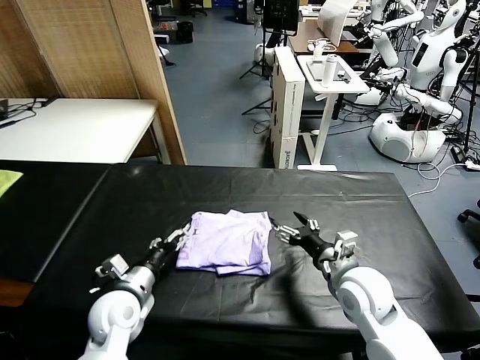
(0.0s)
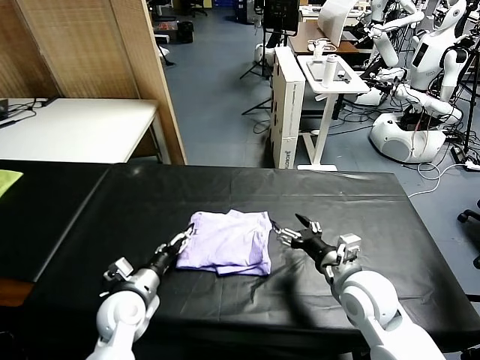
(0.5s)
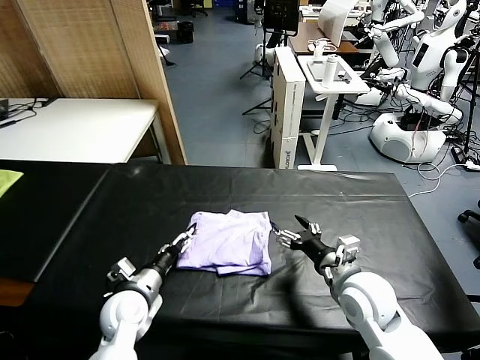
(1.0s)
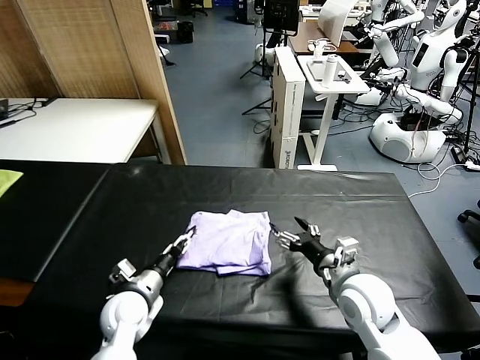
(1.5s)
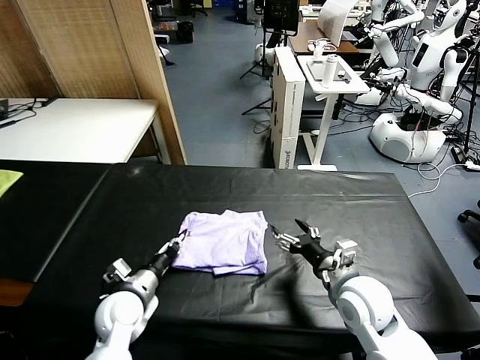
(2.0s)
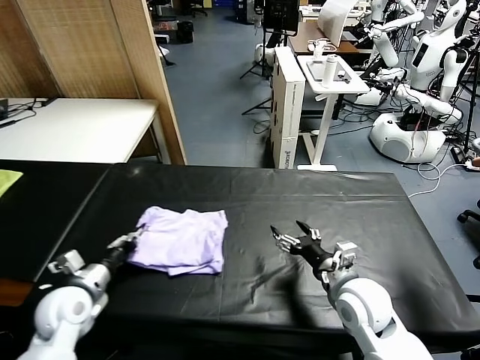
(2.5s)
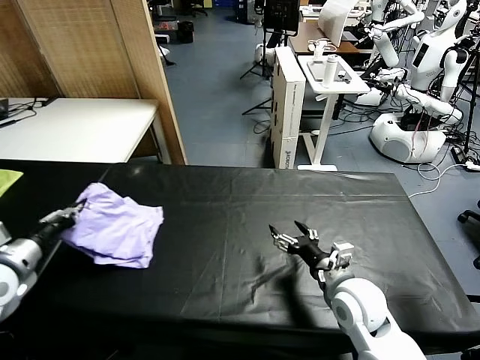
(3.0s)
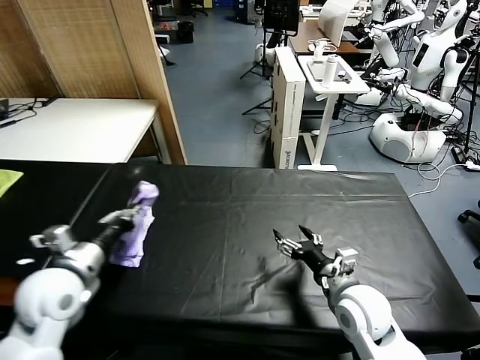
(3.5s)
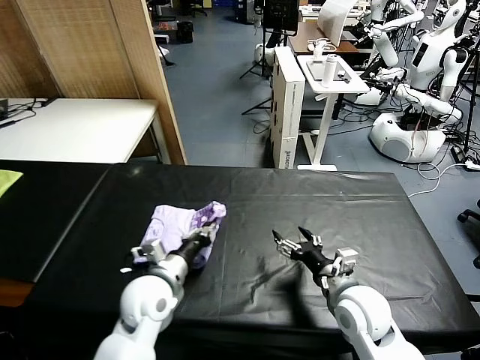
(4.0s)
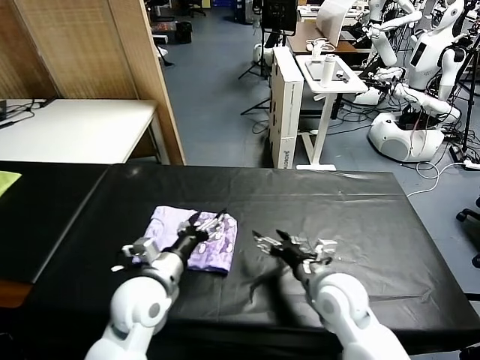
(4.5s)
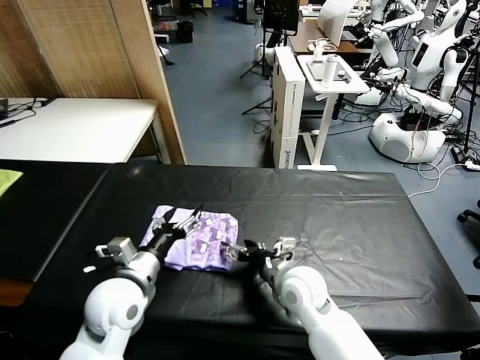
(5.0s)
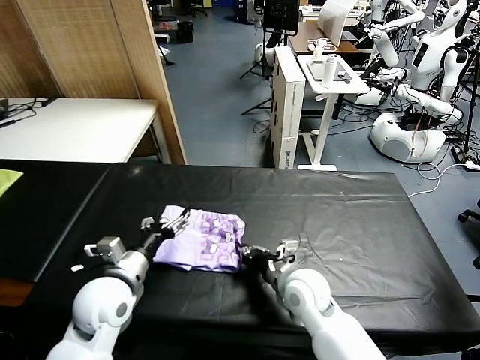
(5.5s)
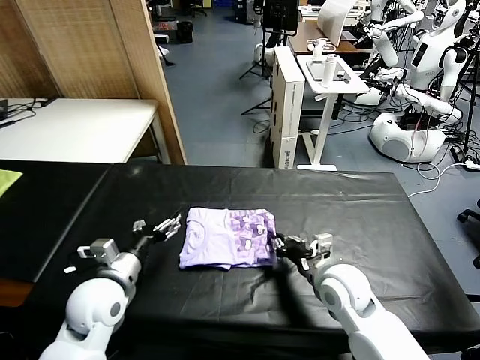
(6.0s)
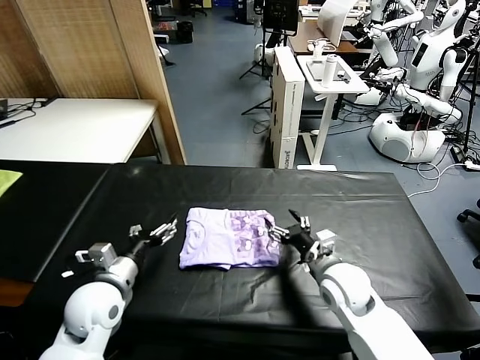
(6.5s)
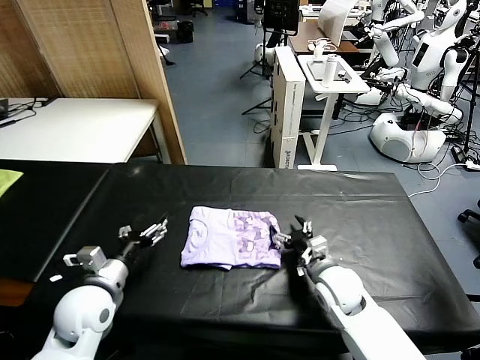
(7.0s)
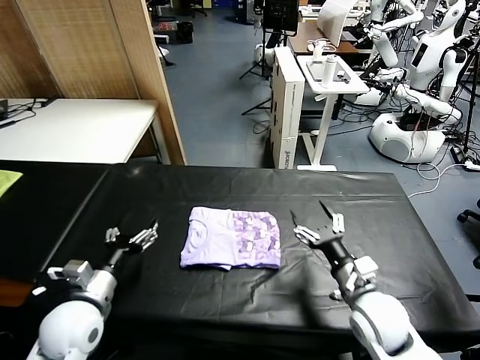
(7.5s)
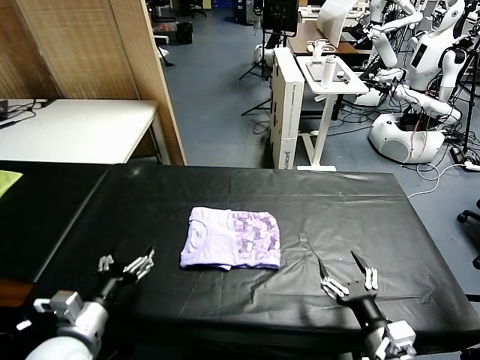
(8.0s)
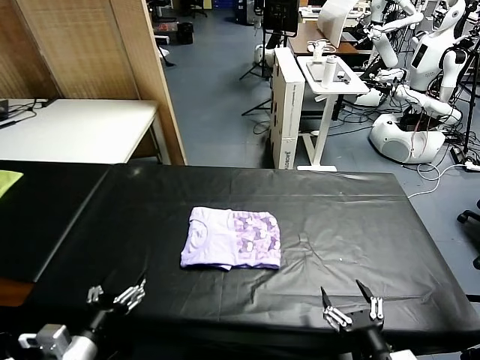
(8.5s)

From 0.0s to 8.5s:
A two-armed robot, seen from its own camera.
Task of the whole recording: fold and organize the clothes.
Step, from 0.0s to 4.0s: Flip the folded clothes over with left gripper.
Step, from 4.5s to 6.0s: Drag the clothes to the center of the table.
From 0.0s to 2.0s: The left gripper closes its fingers.
From 2.0s to 4.0s: The left gripper moves upward, some 10 cm, and moves some 20 cm to the left and comes back.
From 4.0s to 6.5s: The right gripper reaches some 10 cm to the left, then returns, and closes and opens again; the left gripper heads to the left, covering roughly 10 cm, and opens.
From 6.5s to 8.5s: The right gripper moves backward, some 20 cm. Meanwhile the left gripper shifts approximately 15 cm backward.
